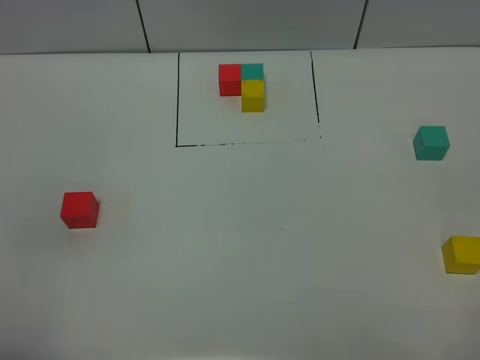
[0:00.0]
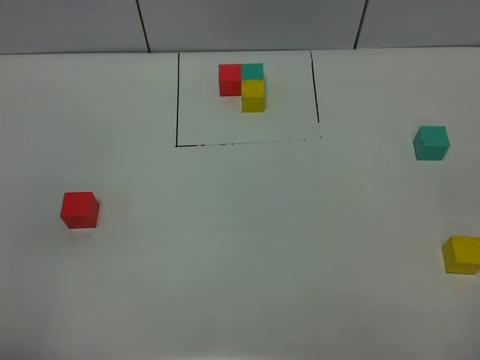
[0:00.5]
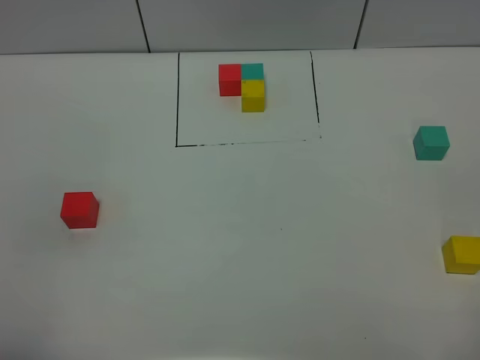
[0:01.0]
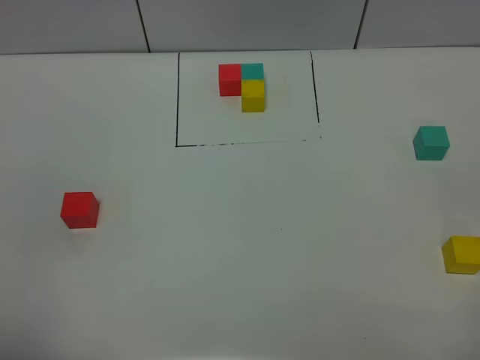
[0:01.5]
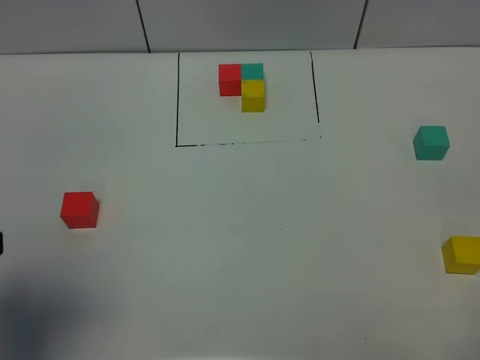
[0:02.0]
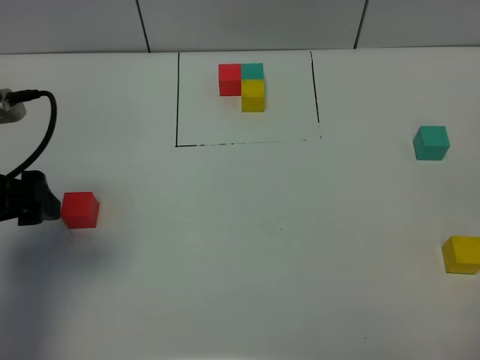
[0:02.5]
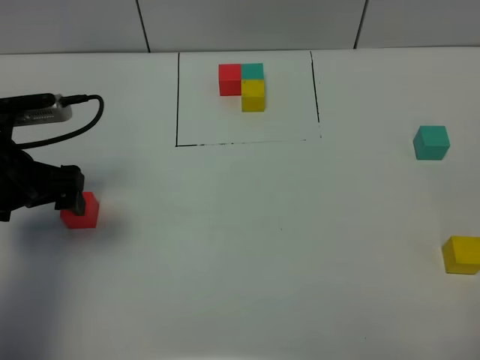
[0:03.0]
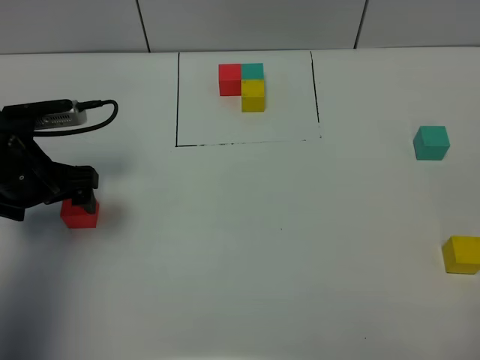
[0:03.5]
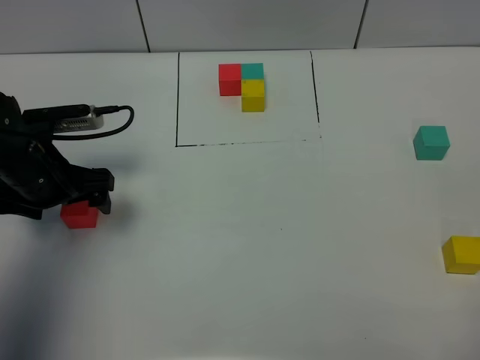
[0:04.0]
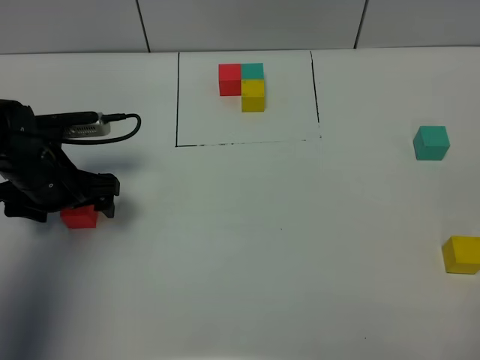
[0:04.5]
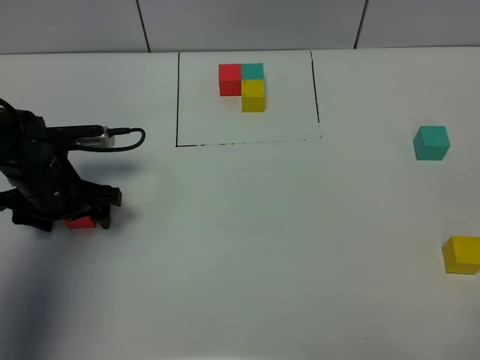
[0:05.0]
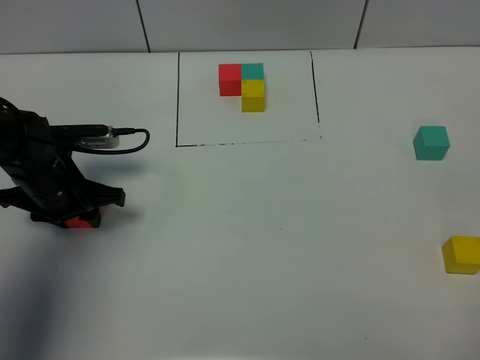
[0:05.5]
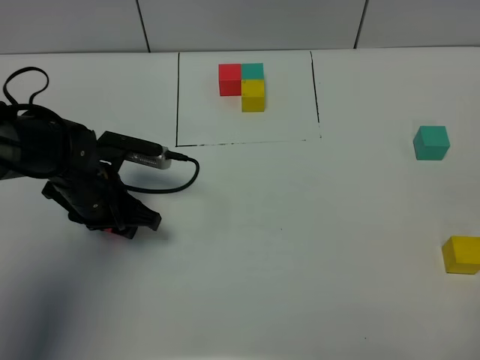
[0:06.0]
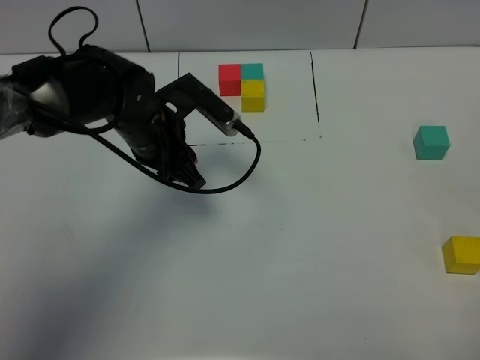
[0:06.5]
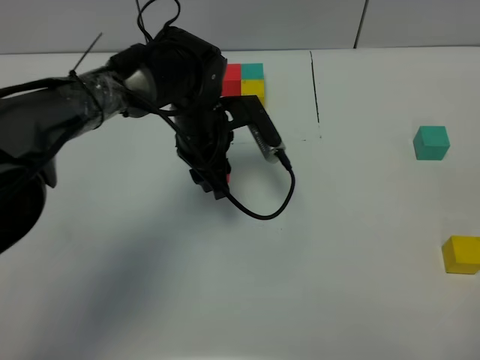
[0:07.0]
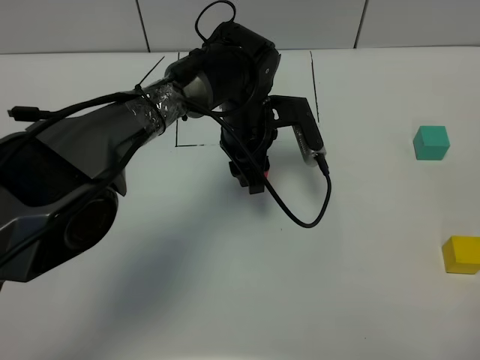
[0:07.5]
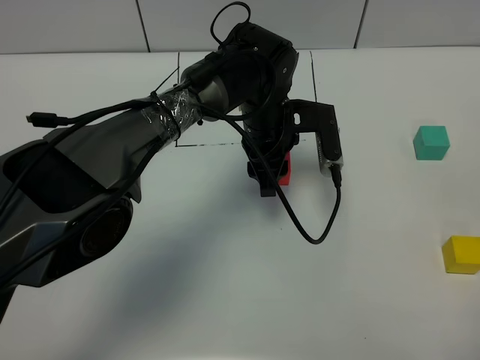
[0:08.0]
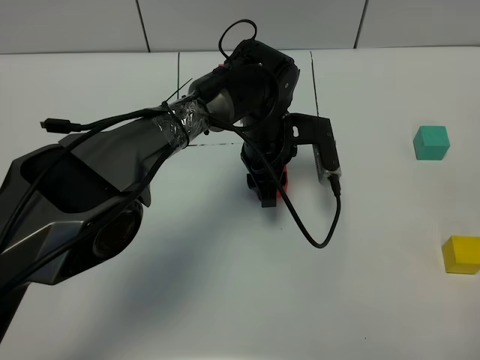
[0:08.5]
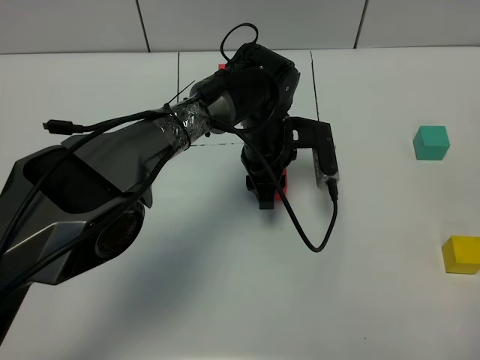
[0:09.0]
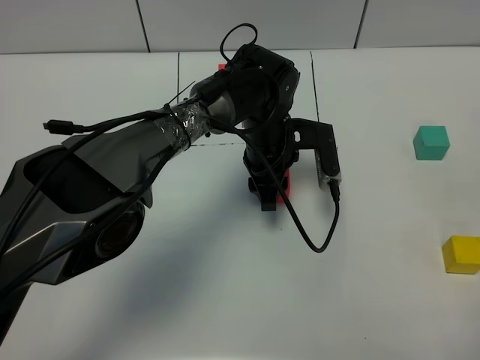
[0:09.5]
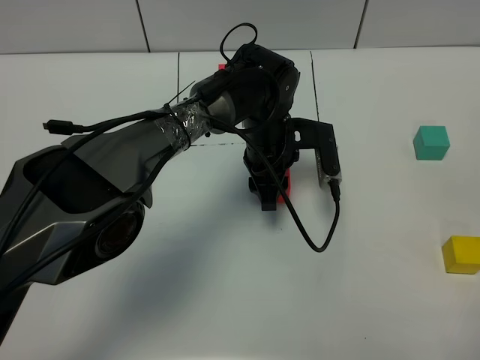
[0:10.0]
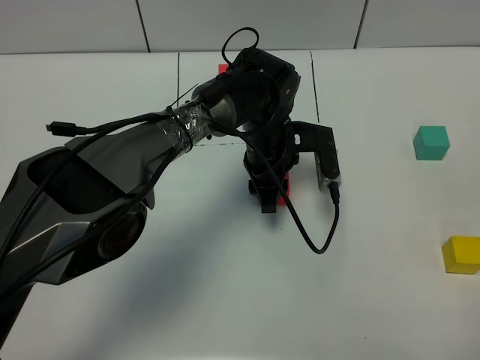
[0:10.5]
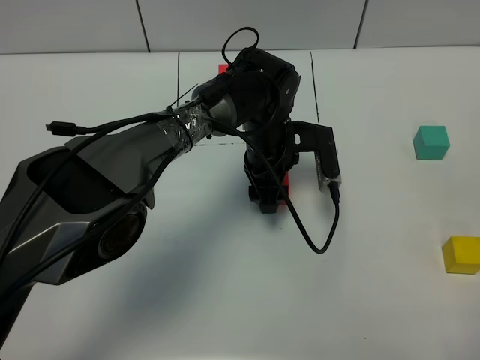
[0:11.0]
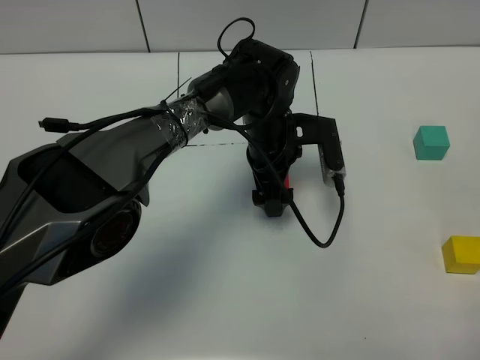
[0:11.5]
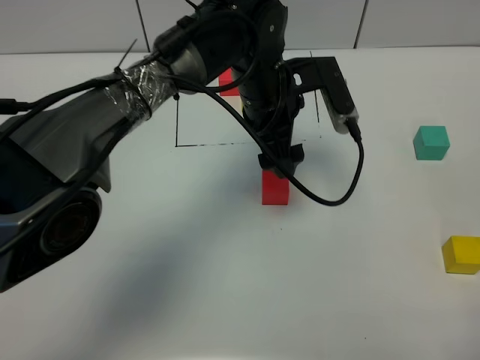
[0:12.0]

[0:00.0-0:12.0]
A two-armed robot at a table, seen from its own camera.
Task of the whole recording: According to the building block template in front, assemble the scattered blocks together.
Step, 0:00.0 to 0:11.0: Put the red build block in the center of the table.
0:00.0 to 0:02.0: The left gripper is displaced forward by roughly 10 cm.
0:02.0 to 0:04.0: The left gripper moves forward and downward, approximately 25 cm.
0:04.0 to 0:06.0: The left gripper travels to the right by roughly 5 cm, and closes.
0:06.0 to 0:08.0: The left gripper moves to the right, some 20 cm.
0:08.0 to 0:10.0: There are only small adjustments of the grippers.
0:10.0 to 0:12.0: The left gripper is displaced upward by about 10 cm, and opens up.

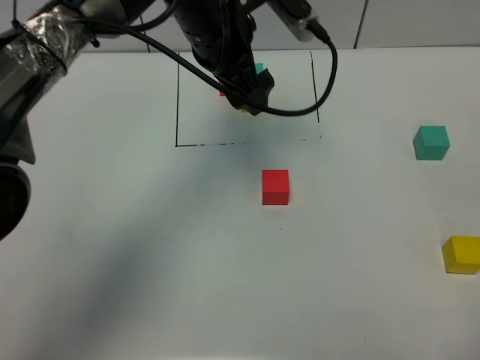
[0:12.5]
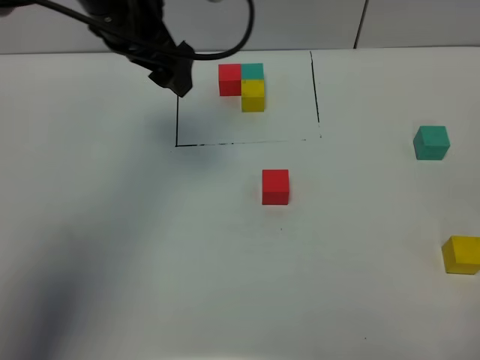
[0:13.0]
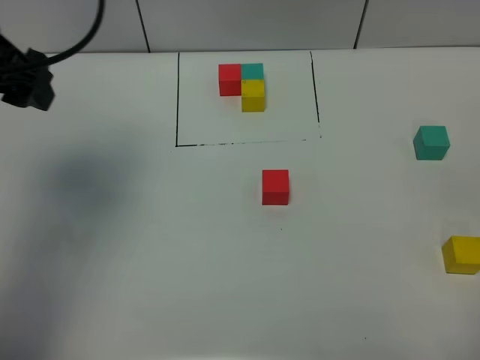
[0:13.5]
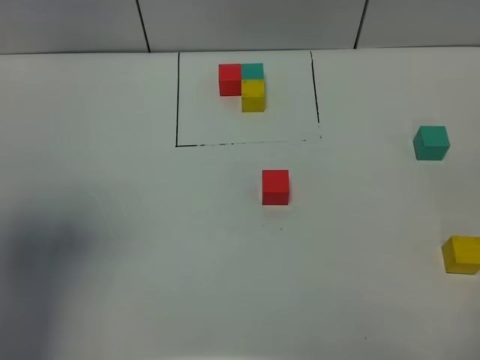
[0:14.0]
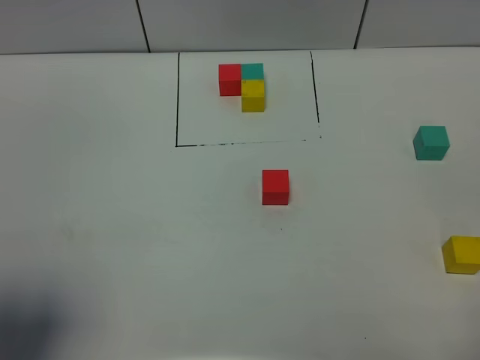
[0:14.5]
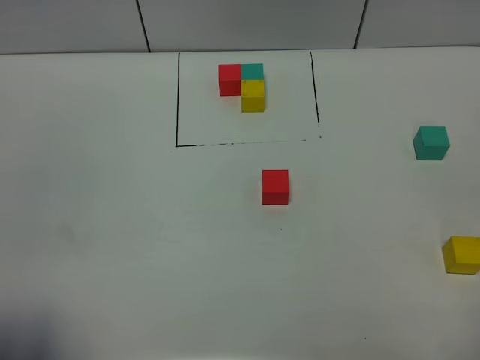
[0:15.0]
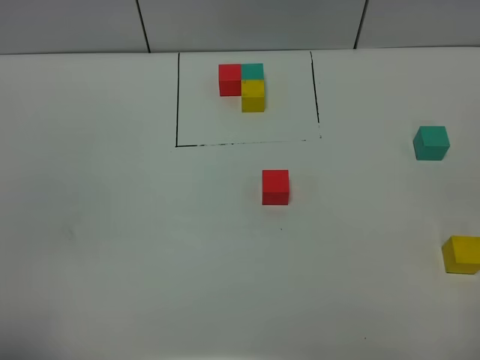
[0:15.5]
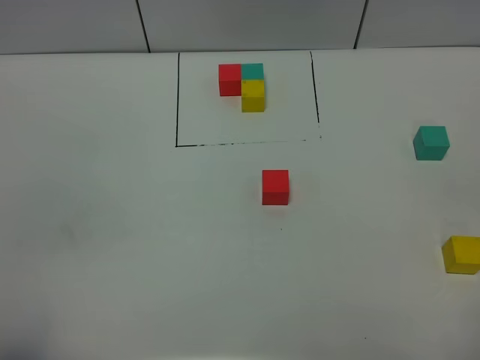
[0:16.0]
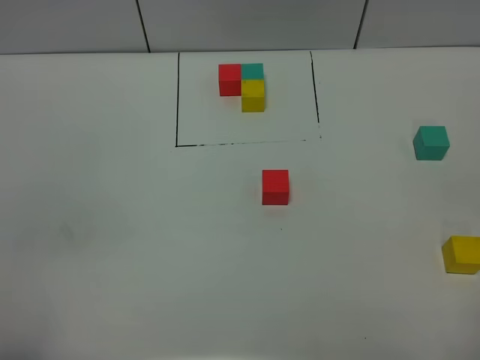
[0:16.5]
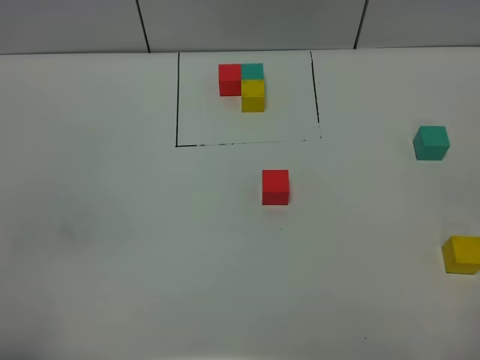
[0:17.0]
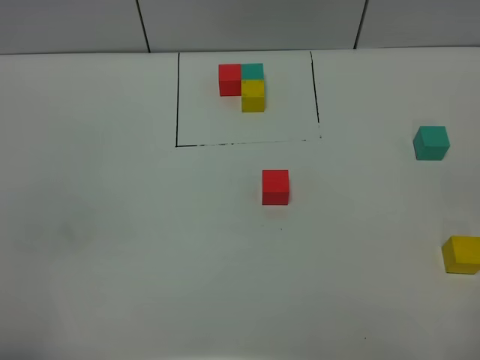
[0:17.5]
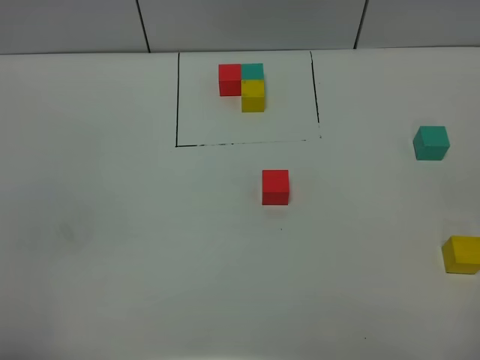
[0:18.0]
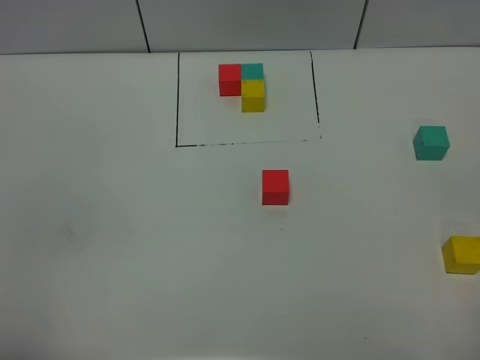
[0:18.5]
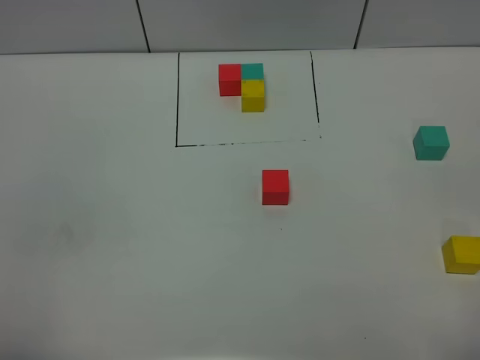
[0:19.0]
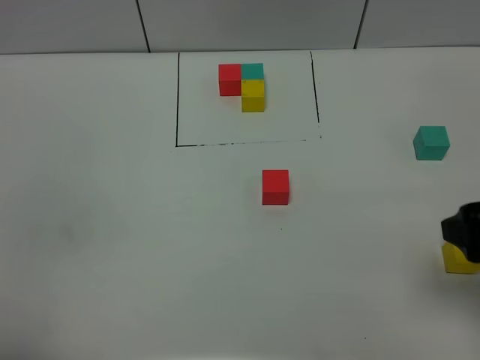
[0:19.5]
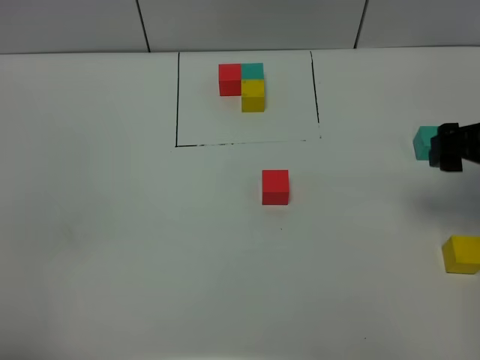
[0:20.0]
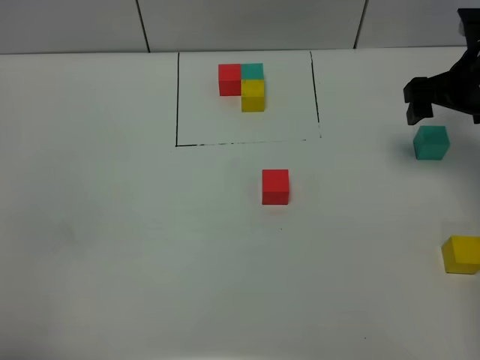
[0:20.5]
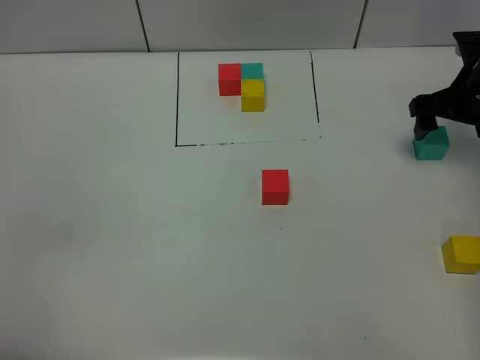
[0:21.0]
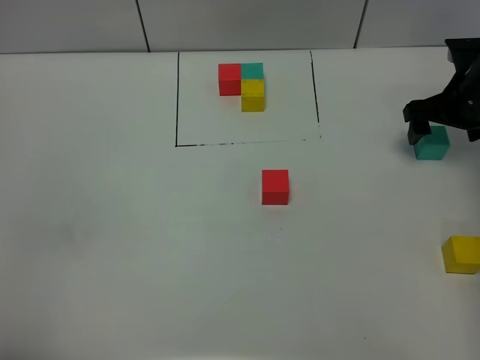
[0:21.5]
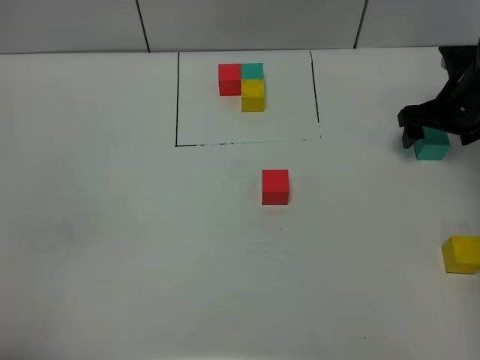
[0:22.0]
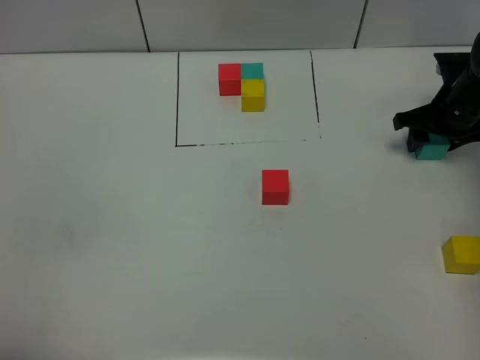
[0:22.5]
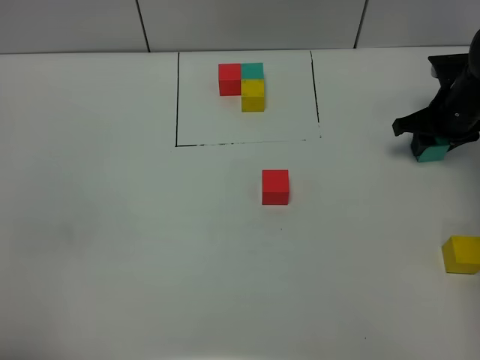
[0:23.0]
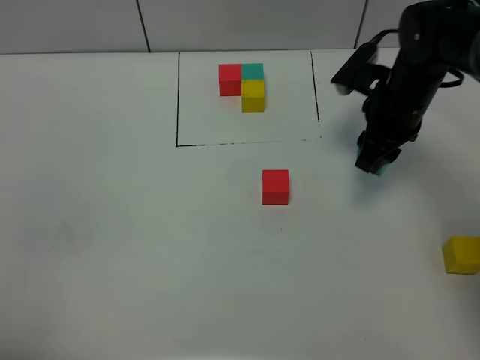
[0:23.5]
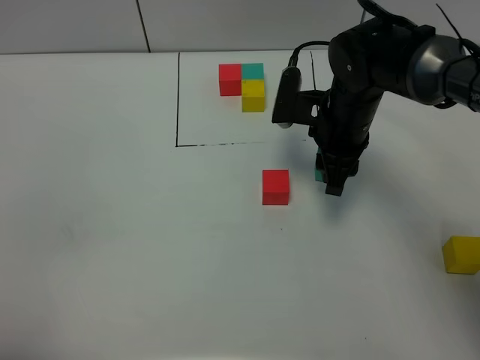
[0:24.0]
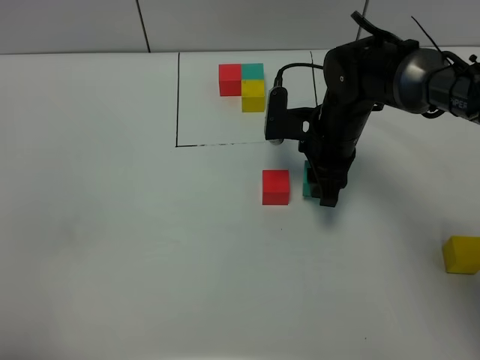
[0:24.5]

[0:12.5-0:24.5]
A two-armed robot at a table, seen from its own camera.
Task of the whole recording: According to the building block template in front, assemble the scattered blocks together.
0:12.5 to 0:14.5: The left gripper moves backward and to the left, approximately 40 cm.
0:14.5 to 0:16.5: The left gripper travels backward and downward by some 10 cm.
0:18.5 to 0:20.5: The right gripper is displaced forward by approximately 40 cm.
0:20.5 to 0:22.5: The right gripper is displaced downward by about 10 cm, and closes up.
0:22.5 to 0:24.5: The right gripper heads to the left, covering approximately 20 cm.

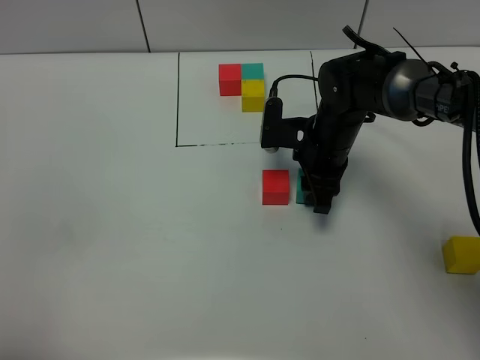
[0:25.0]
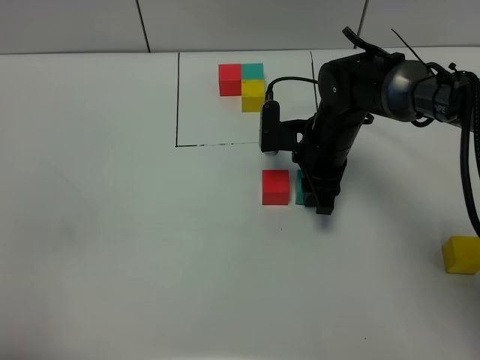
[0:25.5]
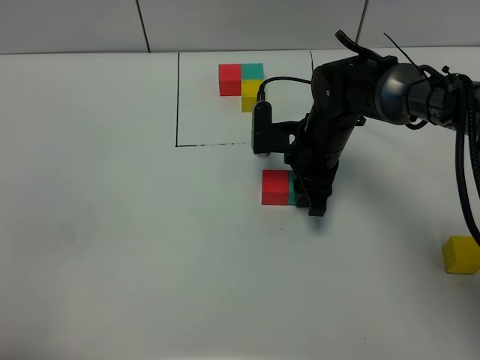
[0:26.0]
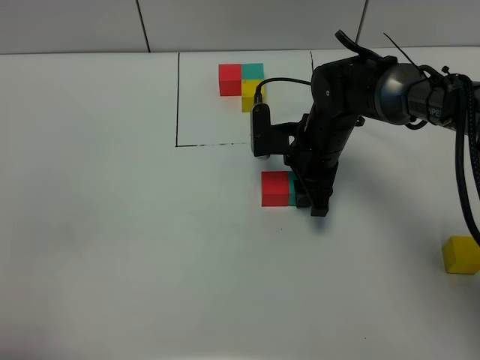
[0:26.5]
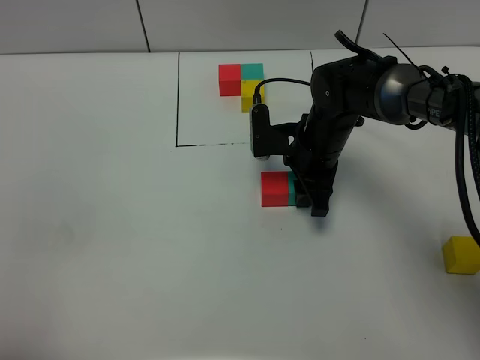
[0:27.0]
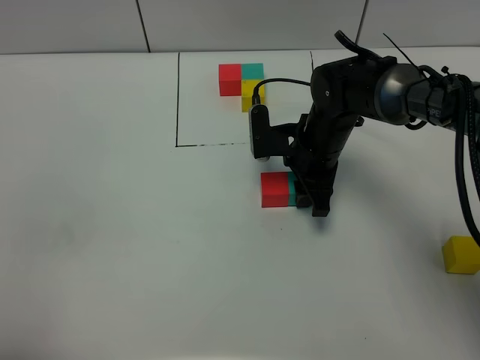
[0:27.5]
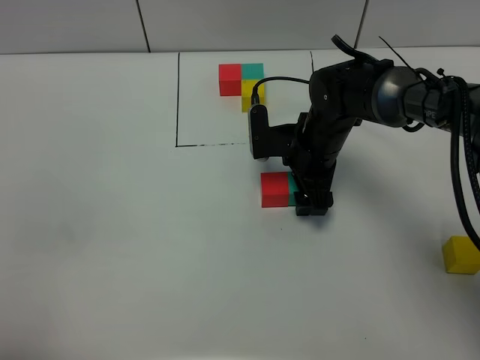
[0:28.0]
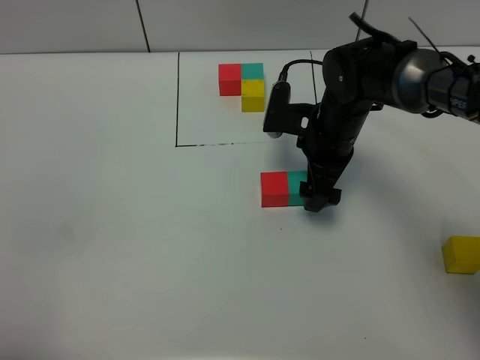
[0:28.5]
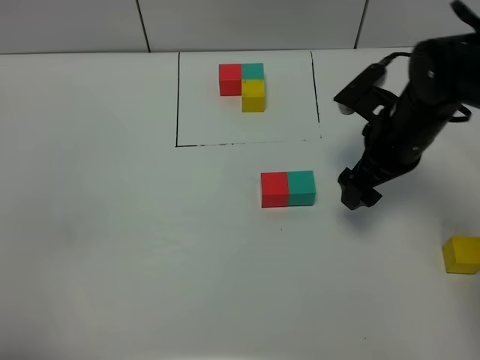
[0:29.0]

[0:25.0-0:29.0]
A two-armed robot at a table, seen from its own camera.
Task of the whole recording: According to the building block template in front, assemble the scattered blocks together.
Step, 0:25.0 to 0:28.0: Put the green build block on the right of the red build block.
0:25.0 to 0:27.0: There are only small adjustments of the grippers.
0:27.0 to 0:29.0: The right gripper shifts about 15 cm to the right, upward and backward, and opens its fingers.
